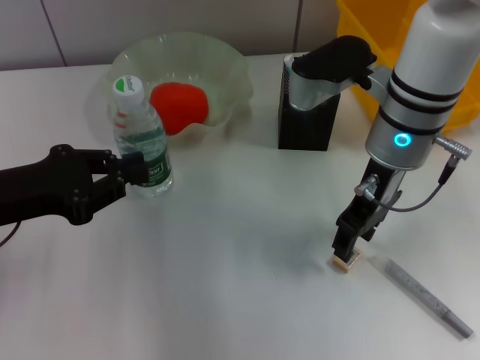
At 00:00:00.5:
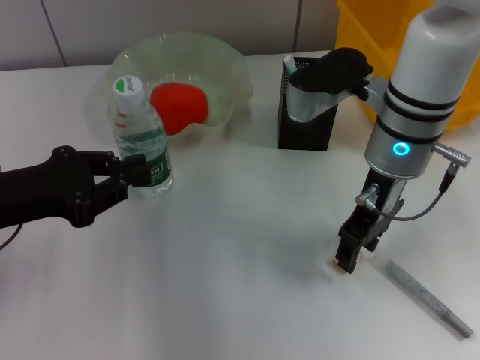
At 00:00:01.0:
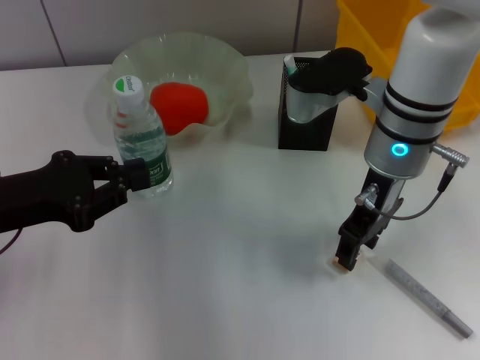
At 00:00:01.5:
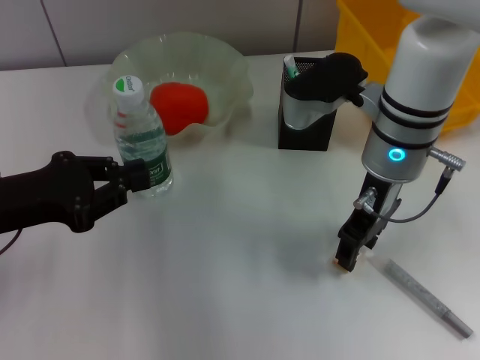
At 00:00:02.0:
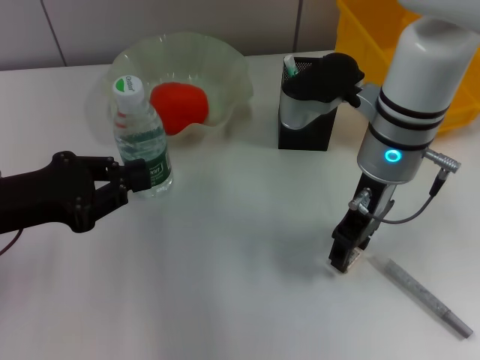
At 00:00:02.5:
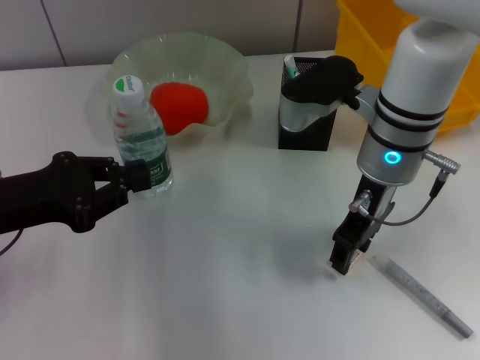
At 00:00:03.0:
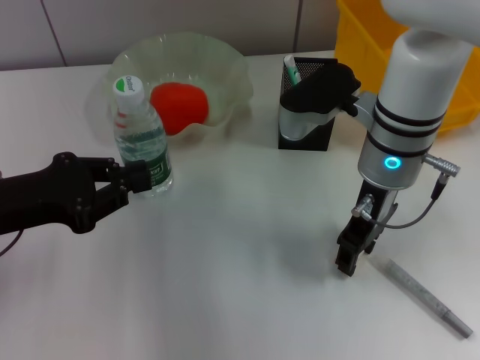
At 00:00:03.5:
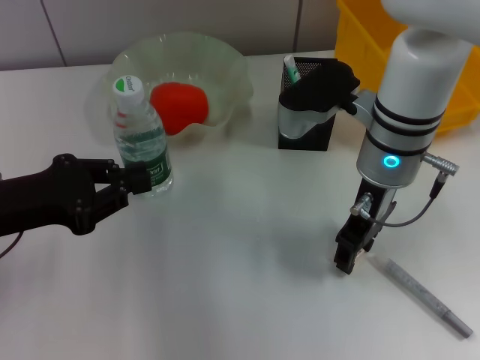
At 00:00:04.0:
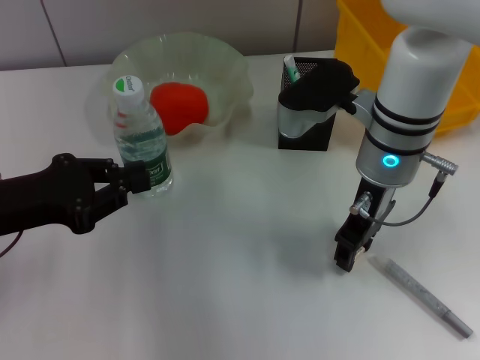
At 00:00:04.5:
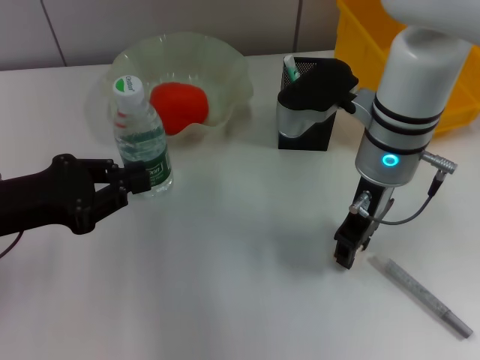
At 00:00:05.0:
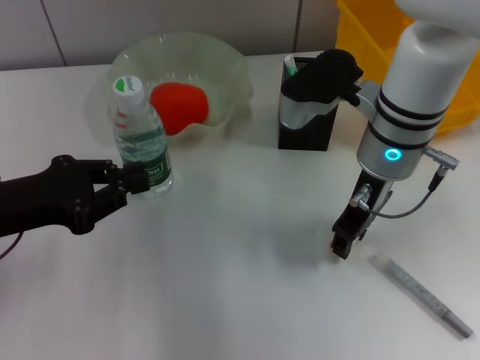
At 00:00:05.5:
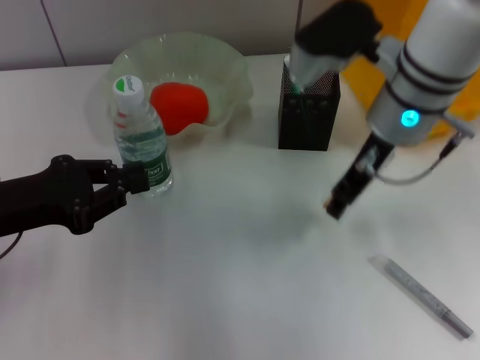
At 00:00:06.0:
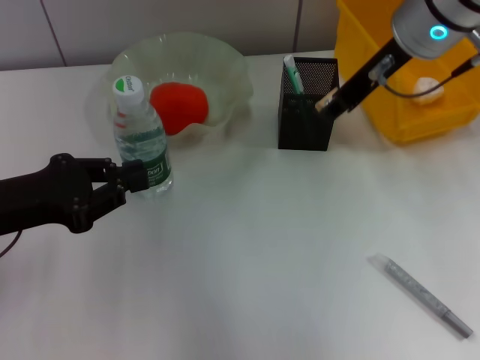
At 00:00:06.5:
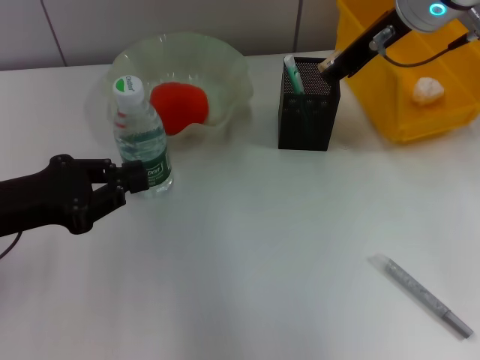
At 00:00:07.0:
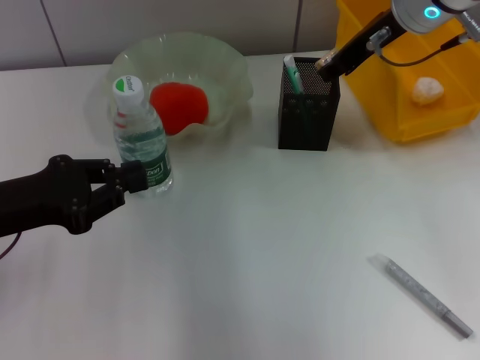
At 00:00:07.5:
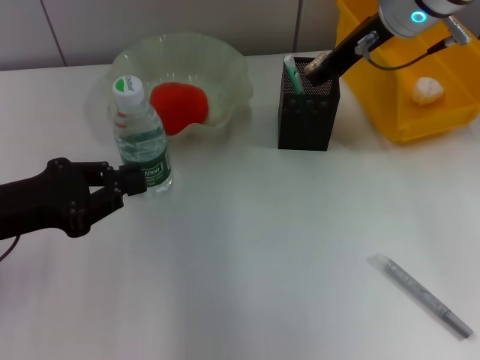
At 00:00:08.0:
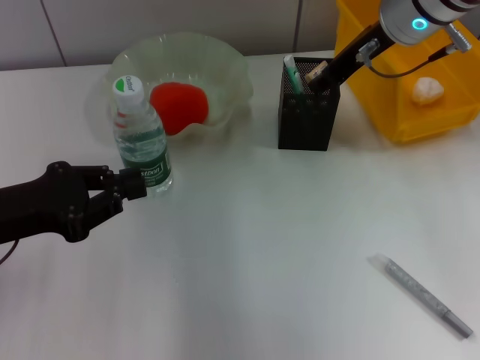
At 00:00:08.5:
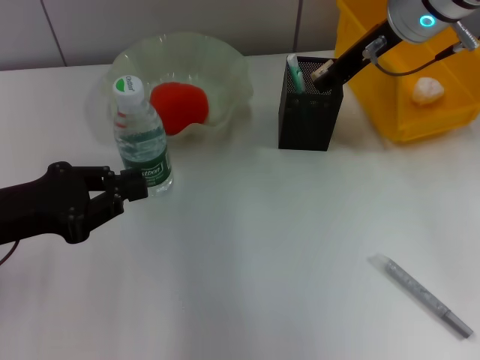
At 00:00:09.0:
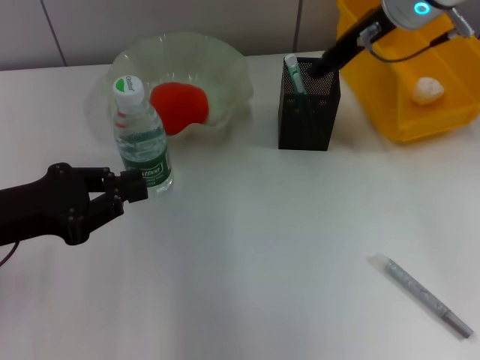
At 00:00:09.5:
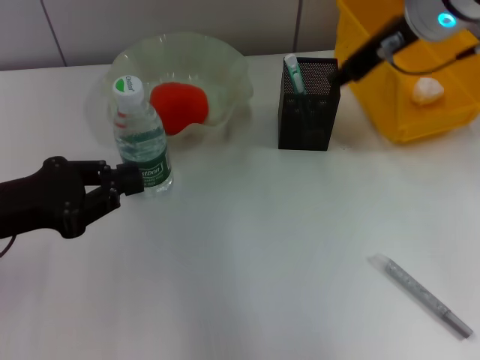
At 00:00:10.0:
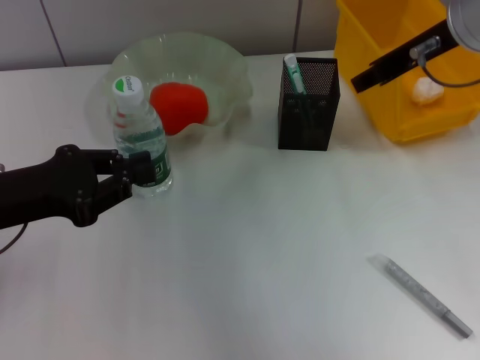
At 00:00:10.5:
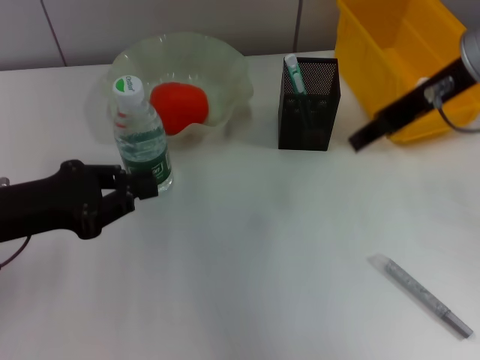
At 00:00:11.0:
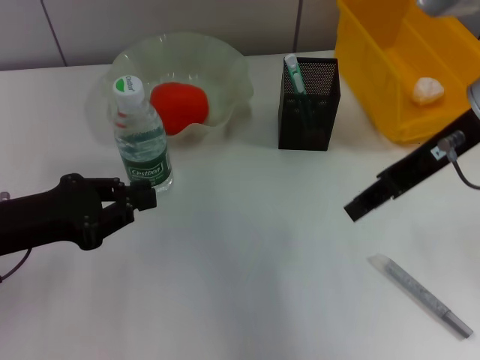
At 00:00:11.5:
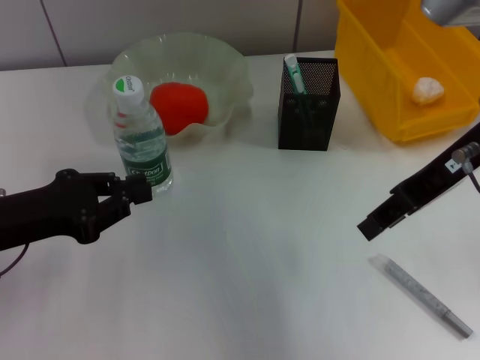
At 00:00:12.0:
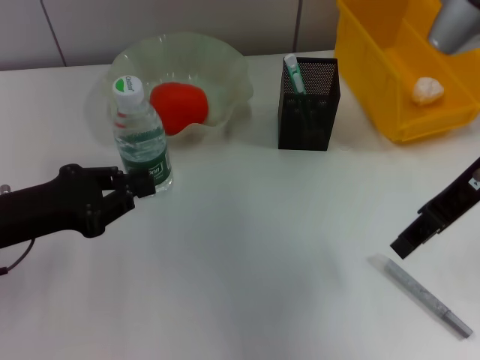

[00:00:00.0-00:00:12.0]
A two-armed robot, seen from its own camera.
Step, 00:00:00.0 to 00:00:04.0: Grab the eraser with the right hand.
Step, 00:00:04.5 to 00:00:09.0: Put the eraser into the pen holder with the right hand.
00:00:00.0 to 00:00:02.0: The grippers make only small movements.
00:00:02.0 to 00:00:04.0: Neither gripper changes place.
00:00:04.0 to 00:00:06.0: The right gripper moves upward, roughly 10 cm.
00:00:06.0 to 00:00:08.0: The right gripper moves about 5 cm.
00:00:08.0 to 00:00:10.0: The right gripper shifts approximately 5 cm backward.
00:00:10.0 to 00:00:12.0: The right gripper shifts roughly 5 cm backward.

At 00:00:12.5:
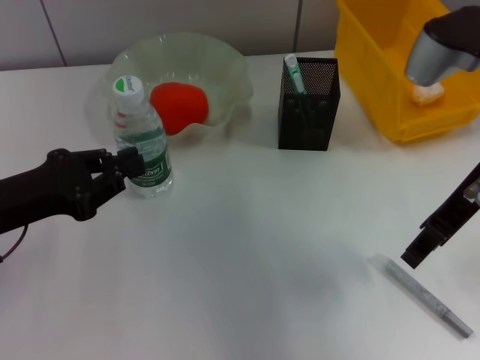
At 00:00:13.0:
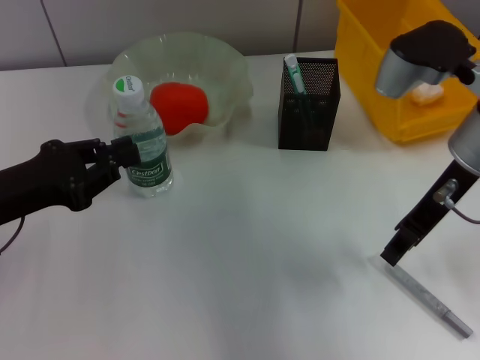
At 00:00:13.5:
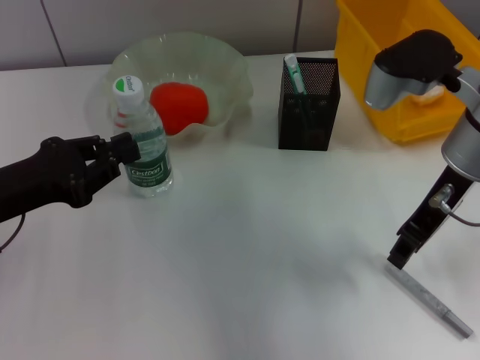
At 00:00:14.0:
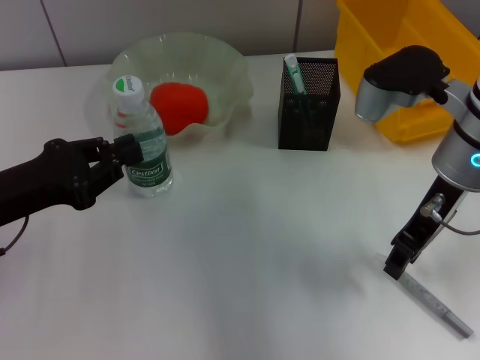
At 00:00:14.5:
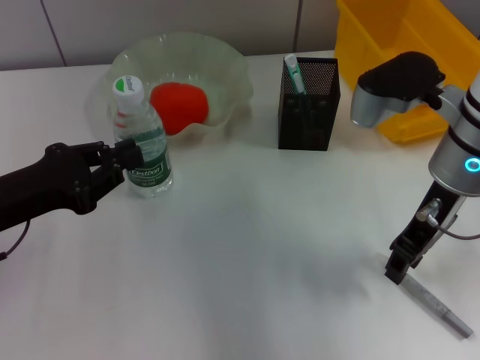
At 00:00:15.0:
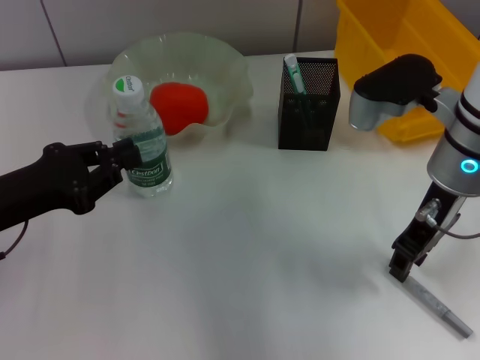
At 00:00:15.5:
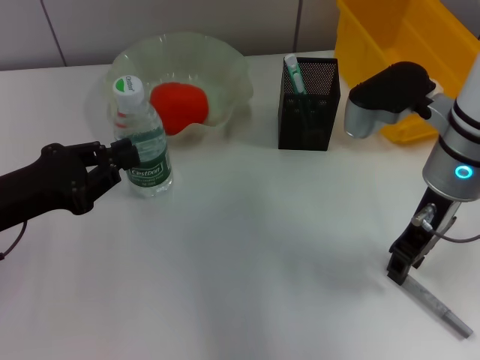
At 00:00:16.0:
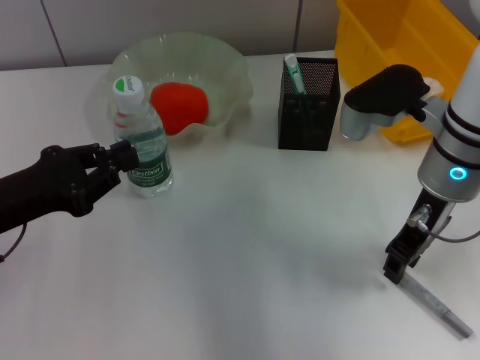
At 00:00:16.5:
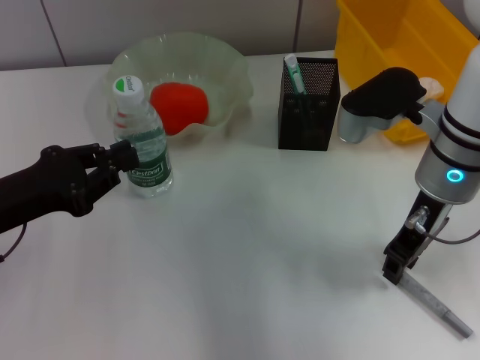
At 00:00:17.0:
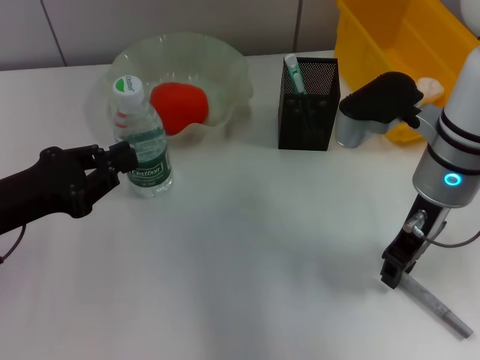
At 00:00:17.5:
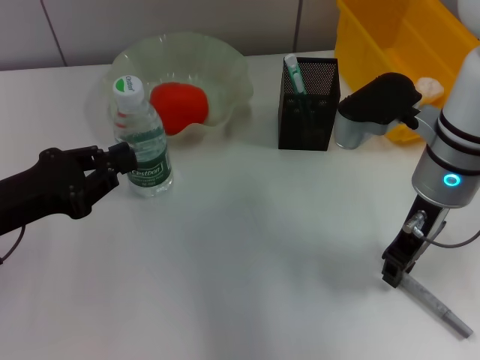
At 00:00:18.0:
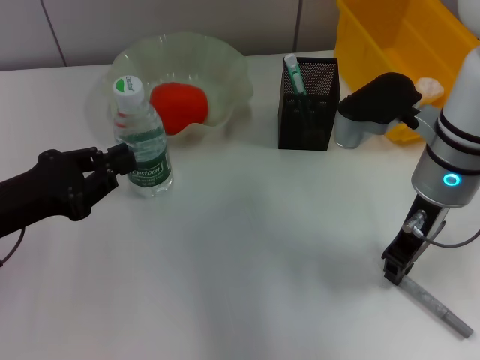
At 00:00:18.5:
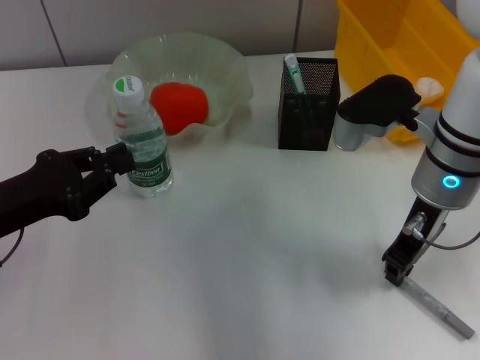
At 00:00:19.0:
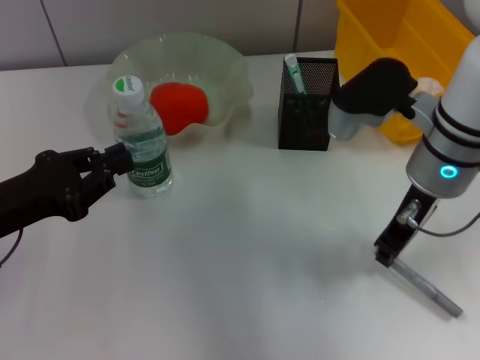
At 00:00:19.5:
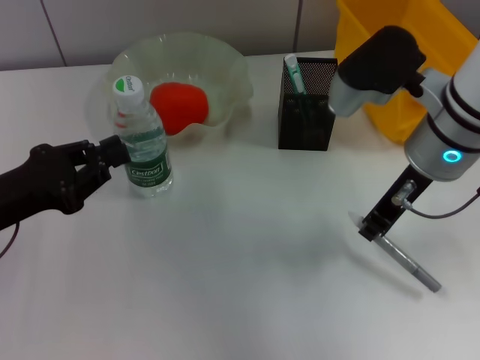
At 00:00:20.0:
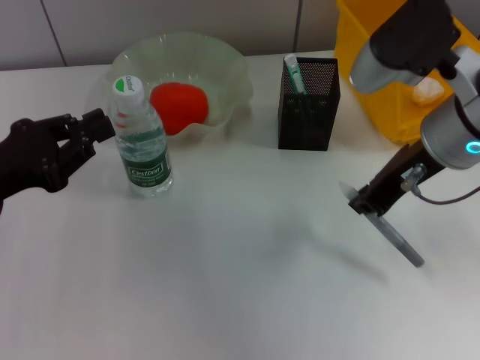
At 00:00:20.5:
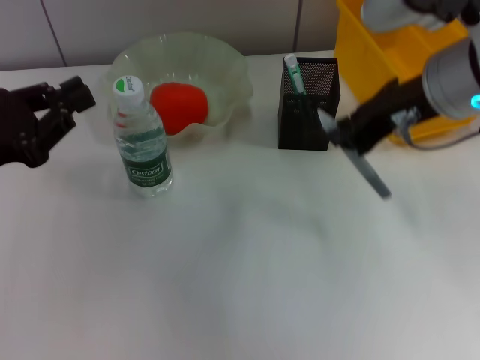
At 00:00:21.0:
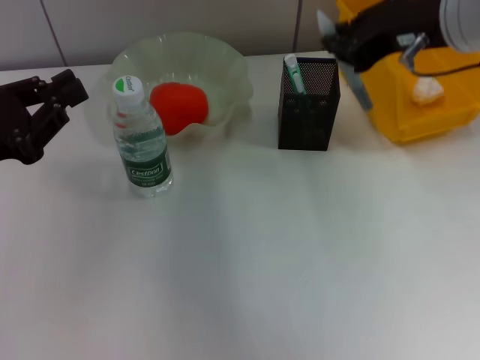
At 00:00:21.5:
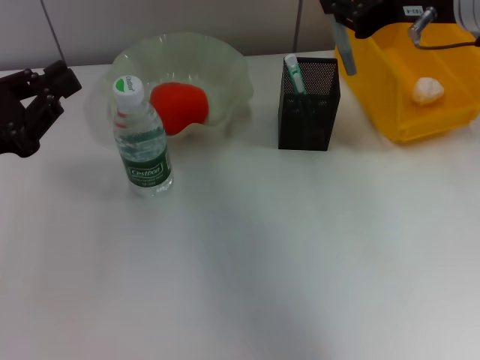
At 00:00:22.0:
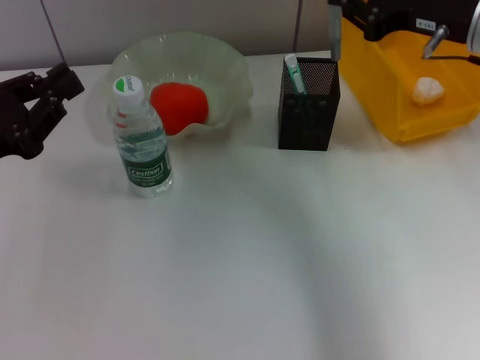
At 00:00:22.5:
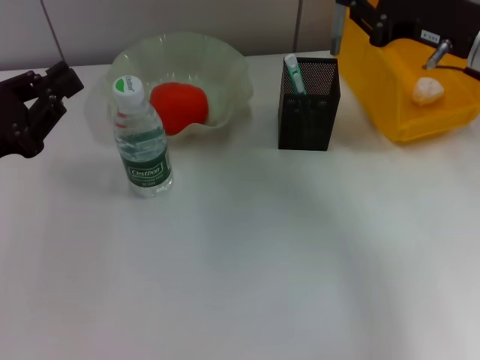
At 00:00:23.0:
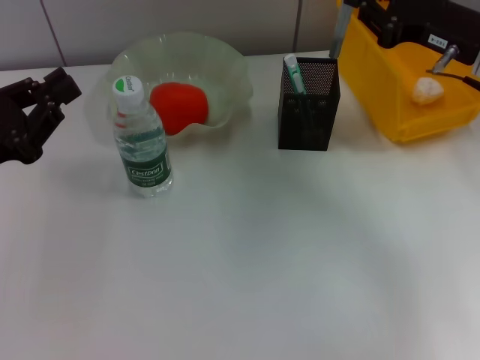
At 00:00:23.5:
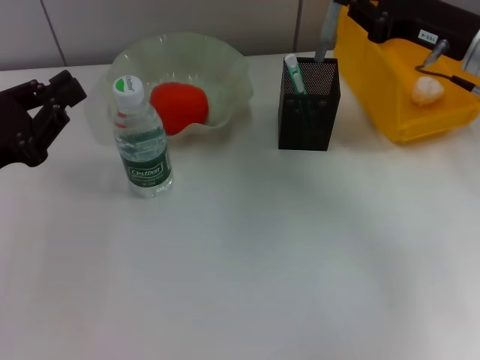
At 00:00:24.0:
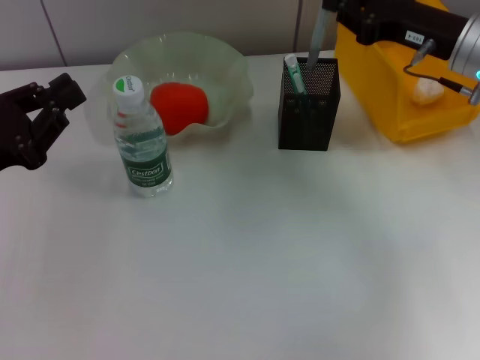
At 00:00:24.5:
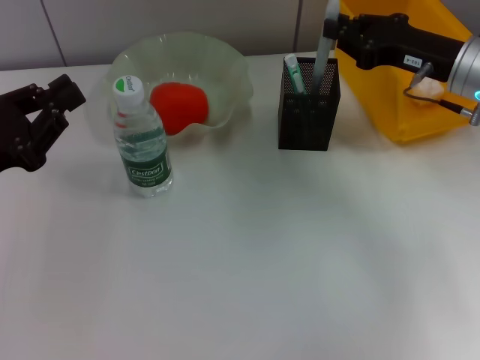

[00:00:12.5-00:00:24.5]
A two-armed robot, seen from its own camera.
Step, 00:00:12.5 to 00:00:18.0: Grab the gray glue with the right hand.
00:00:12.5 to 00:00:14.5: The right gripper changes place by some 5 cm.
00:00:14.5 to 00:00:16.5: The grippers make only small movements.
00:00:16.5 to 00:00:18.5: Both grippers stay about where they are.
00:00:18.5 to 00:00:20.5: The right gripper moves upward, about 10 cm.
00:00:20.5 to 00:00:22.5: The right gripper is displaced to the right and downward by some 10 cm.
00:00:22.5 to 00:00:24.5: The grippers move only a little.

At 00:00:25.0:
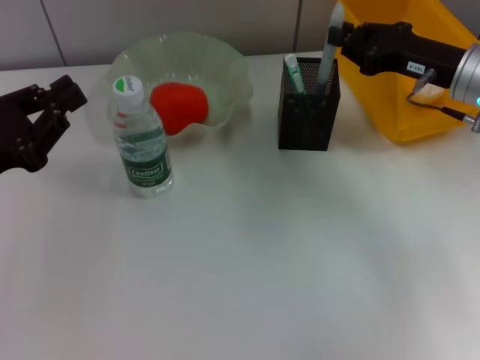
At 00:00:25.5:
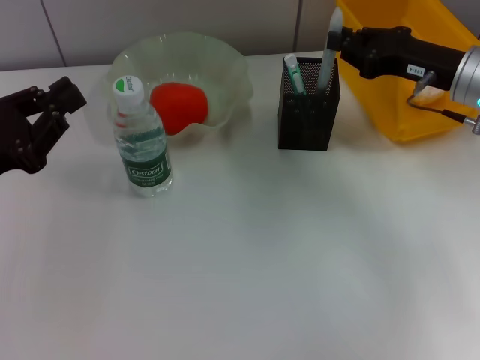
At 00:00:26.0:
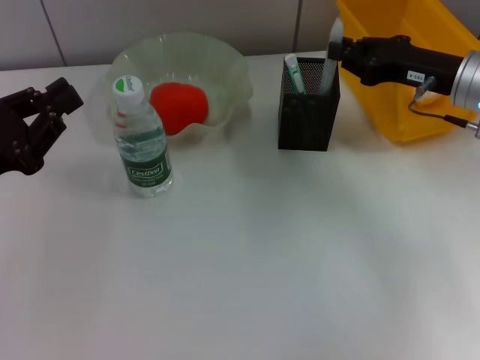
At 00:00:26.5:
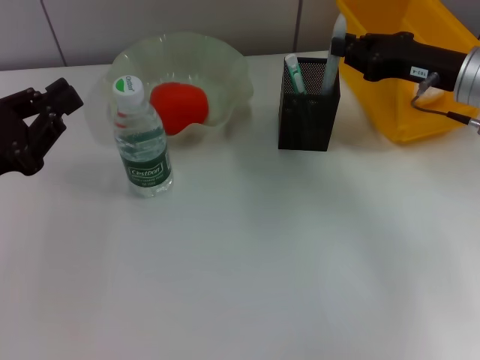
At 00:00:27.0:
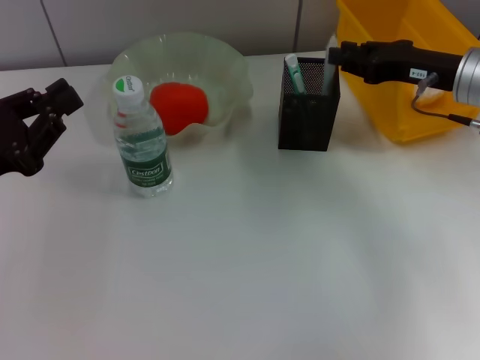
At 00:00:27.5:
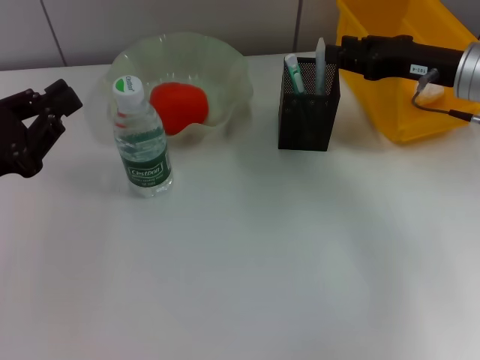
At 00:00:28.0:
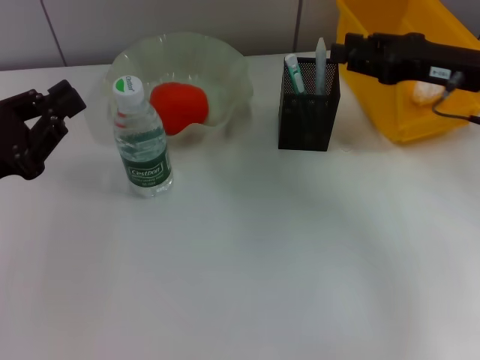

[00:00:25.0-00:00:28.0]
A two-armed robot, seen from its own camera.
Step, 00:00:25.0 to 00:00:27.0: Place the gray glue into the pen holder with the right hand.
00:00:25.0 to 00:00:26.5: The two grippers keep their place.
00:00:26.5 to 00:00:28.0: The right gripper opens.
